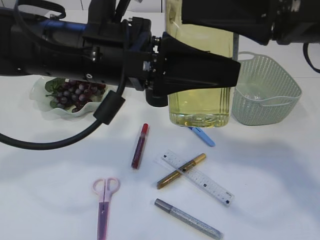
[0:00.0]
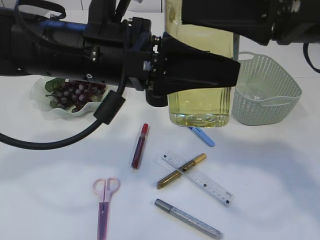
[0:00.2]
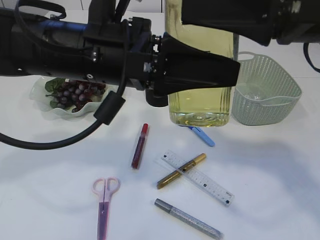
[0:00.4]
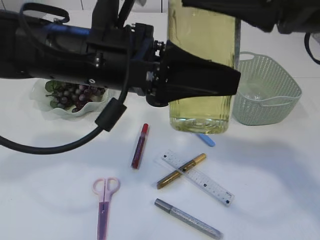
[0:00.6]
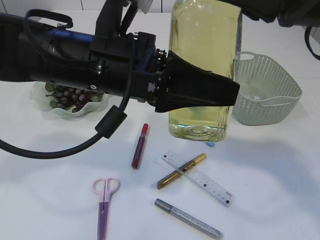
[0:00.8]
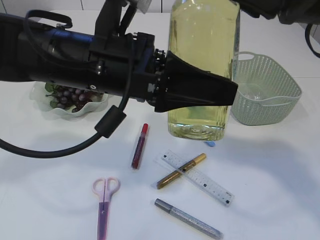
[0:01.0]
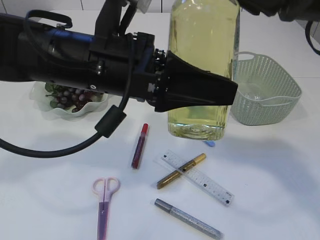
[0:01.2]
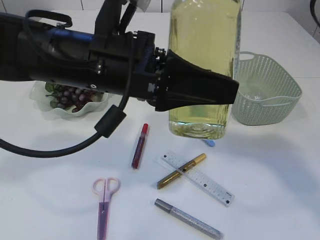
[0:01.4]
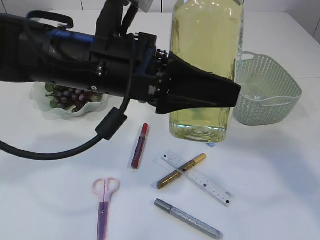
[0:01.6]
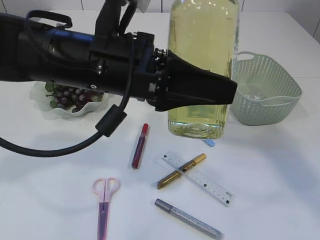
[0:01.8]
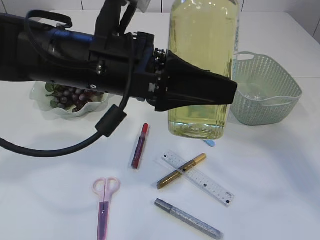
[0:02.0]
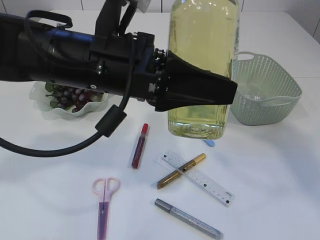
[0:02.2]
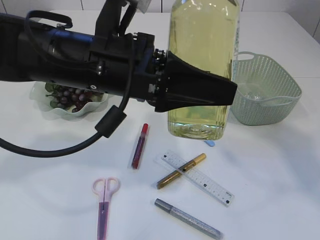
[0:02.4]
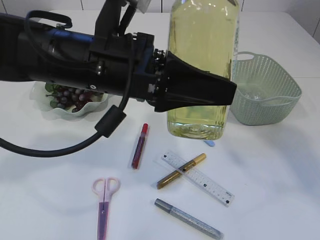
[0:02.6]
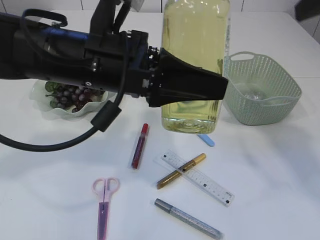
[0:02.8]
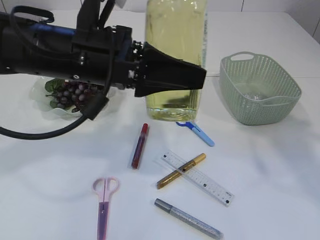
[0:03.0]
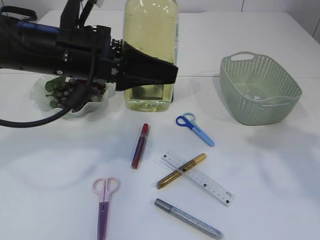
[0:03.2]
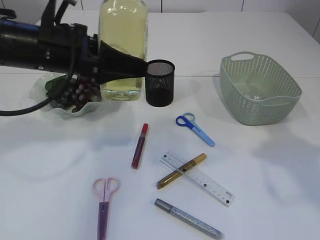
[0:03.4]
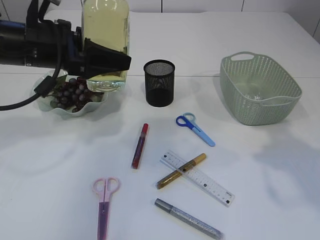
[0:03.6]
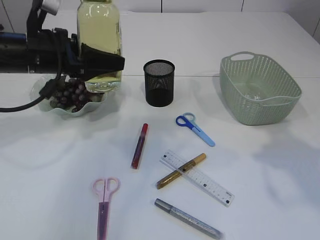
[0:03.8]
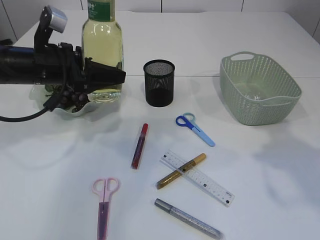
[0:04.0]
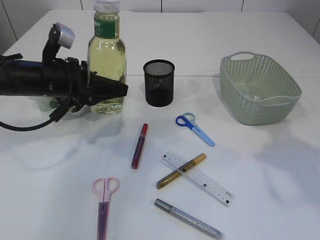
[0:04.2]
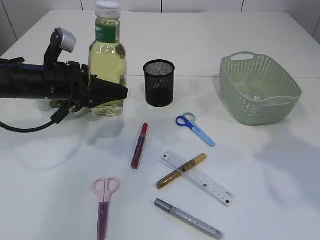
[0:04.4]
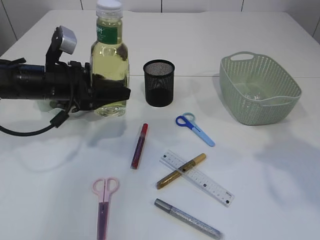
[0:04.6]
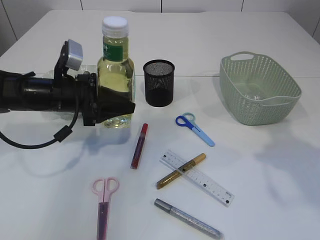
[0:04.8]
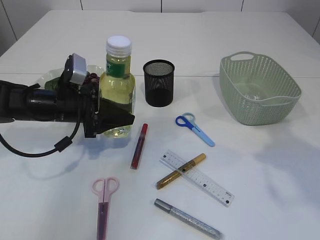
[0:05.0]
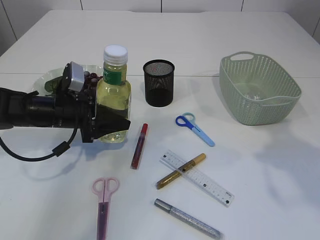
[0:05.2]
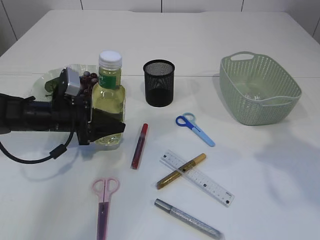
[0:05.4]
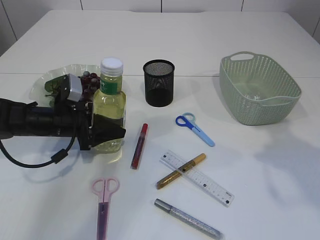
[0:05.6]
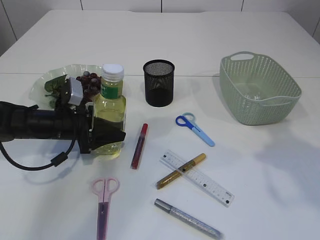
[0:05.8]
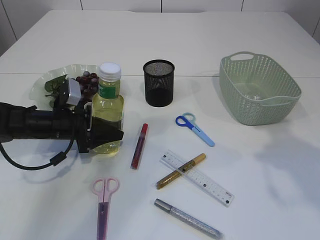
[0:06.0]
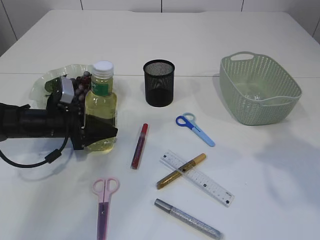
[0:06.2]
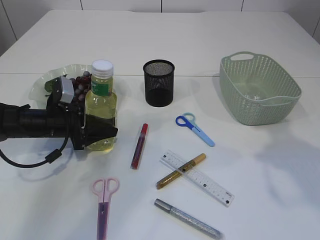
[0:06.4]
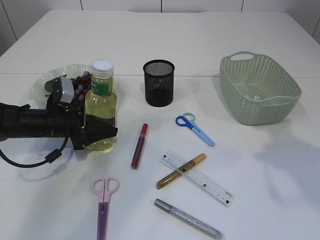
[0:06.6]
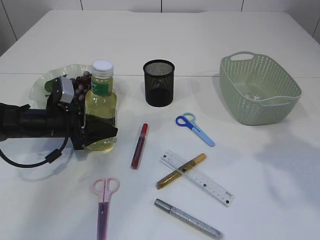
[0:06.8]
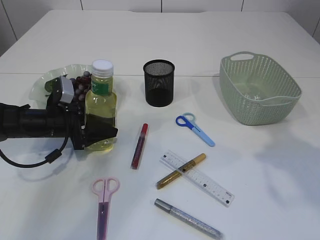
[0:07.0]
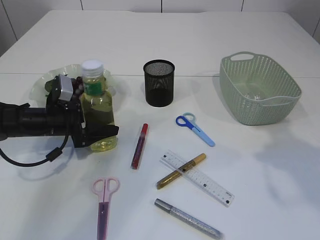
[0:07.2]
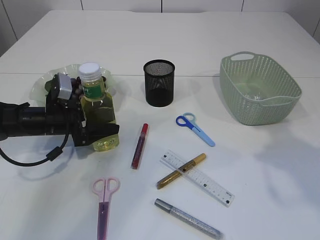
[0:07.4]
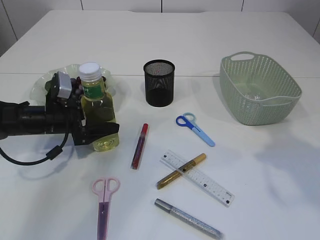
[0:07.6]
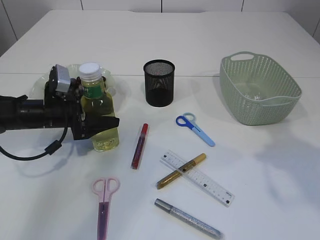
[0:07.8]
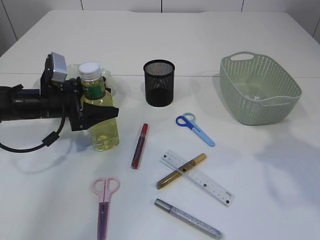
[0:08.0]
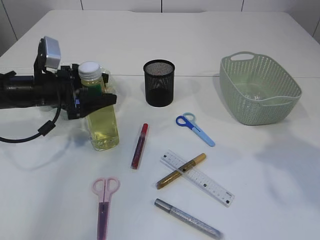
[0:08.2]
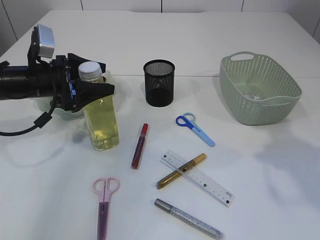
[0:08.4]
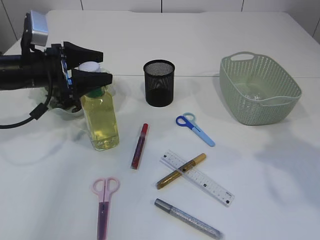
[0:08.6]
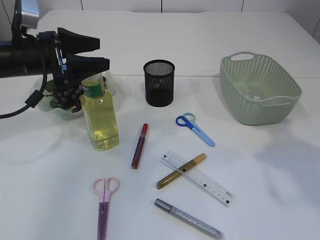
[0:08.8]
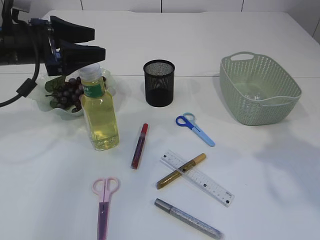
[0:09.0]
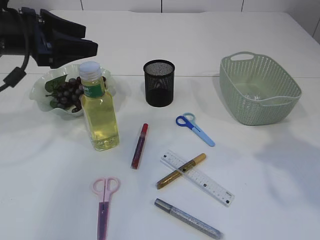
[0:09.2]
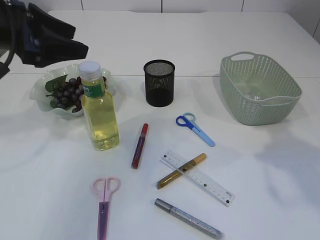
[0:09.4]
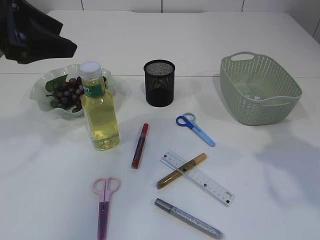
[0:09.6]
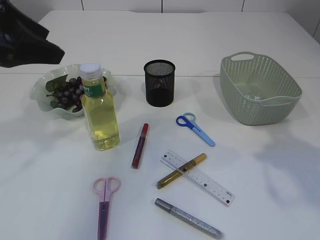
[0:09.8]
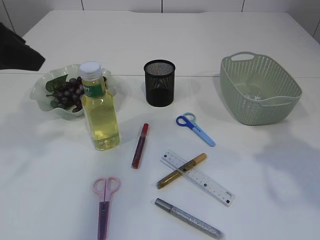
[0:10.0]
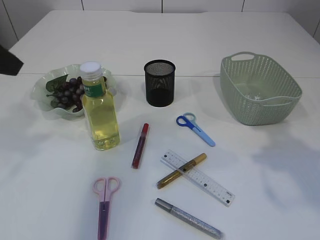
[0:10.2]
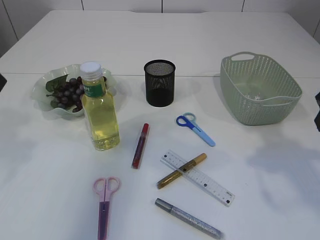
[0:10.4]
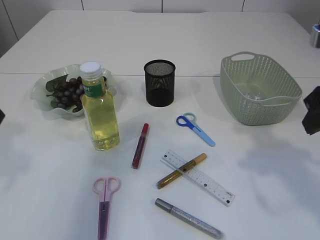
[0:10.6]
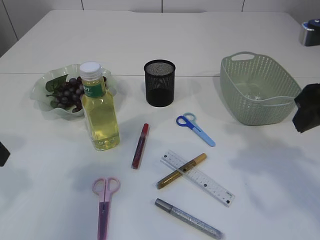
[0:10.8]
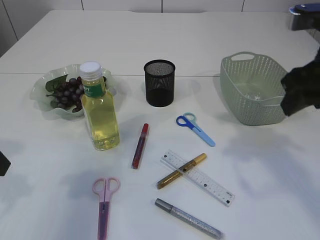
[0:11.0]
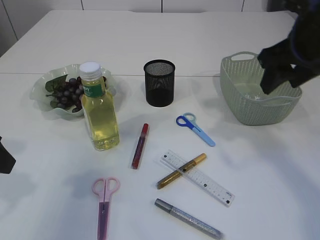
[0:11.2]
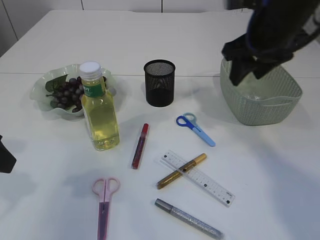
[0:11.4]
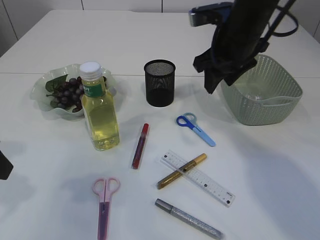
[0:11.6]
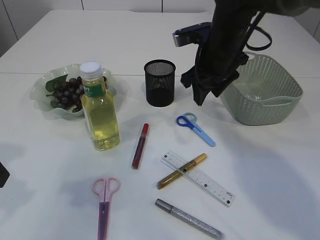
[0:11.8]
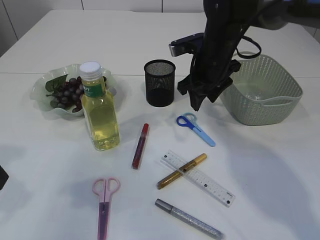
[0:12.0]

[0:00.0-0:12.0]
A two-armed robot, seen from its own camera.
Step, 0:00.0 to 0:03.0: transfer the bottle to the left arm.
Step, 0:03.2 to 0:09.0: Place the bottle.
0:00.0 to 0:01.6: The right gripper goes approximately 5 cm upward.
0:01.6 to 0:03.0: The right gripper goes approximately 10 cm to the right.
0:03.0 to 0:04.4: The right gripper shifts approximately 10 cm downward. Meanwhile the left gripper moves to the left, downward and forward, roughly 20 cm.
0:04.4 to 0:06.0: The left gripper is displaced downward by about 10 cm.
0:06.0 to 0:07.6: The left gripper opens.
0:07.6 to 0:09.0: The left gripper is displaced upward by some 15 cm.
0:09.0 to 0:10.4: The left gripper travels backward and upward by approximately 15 cm.
0:10.4 to 0:12.0: The right gripper moves forward and to the left, approximately 25 cm. Meanwhile the left gripper shifts roughly 10 cm downward.

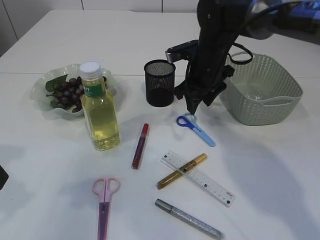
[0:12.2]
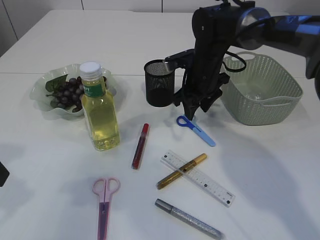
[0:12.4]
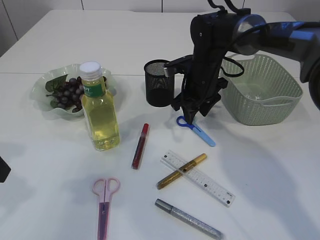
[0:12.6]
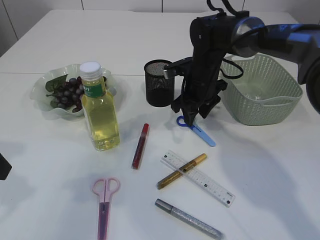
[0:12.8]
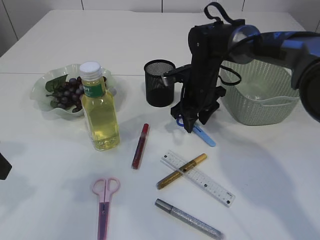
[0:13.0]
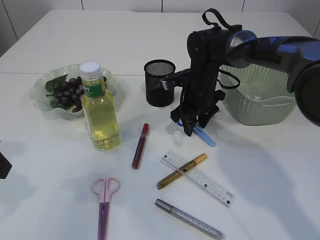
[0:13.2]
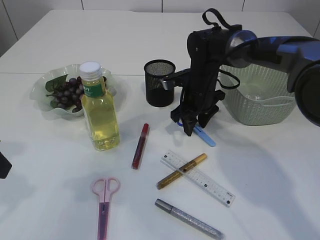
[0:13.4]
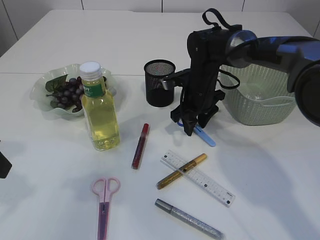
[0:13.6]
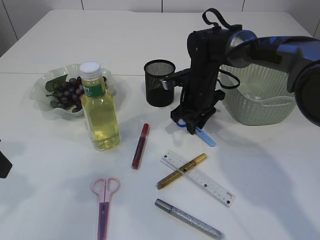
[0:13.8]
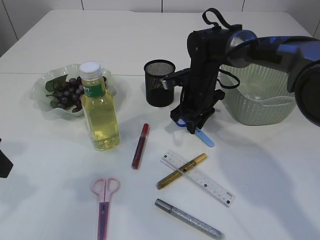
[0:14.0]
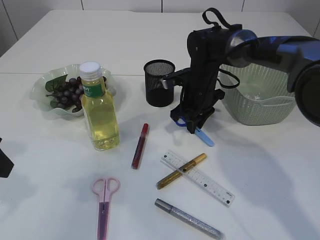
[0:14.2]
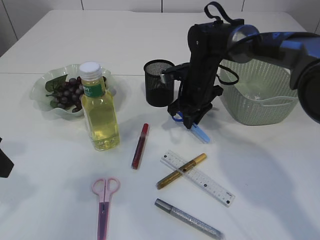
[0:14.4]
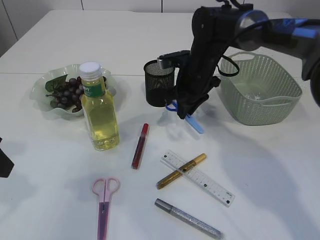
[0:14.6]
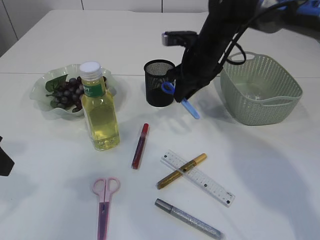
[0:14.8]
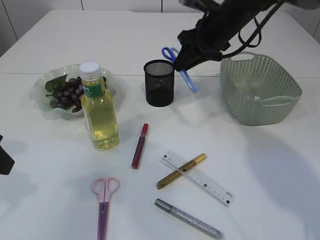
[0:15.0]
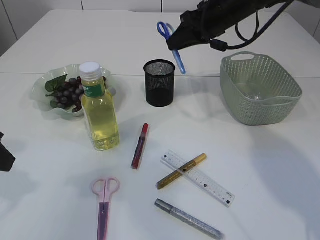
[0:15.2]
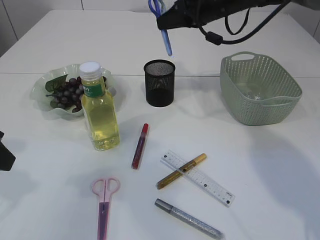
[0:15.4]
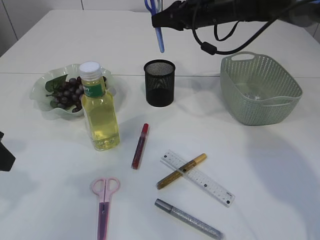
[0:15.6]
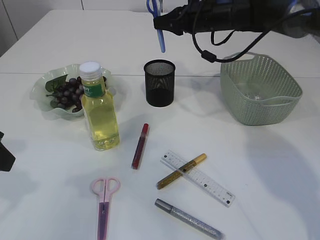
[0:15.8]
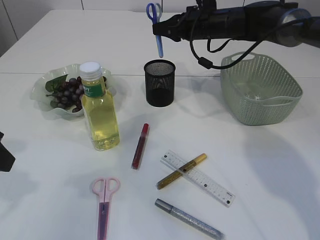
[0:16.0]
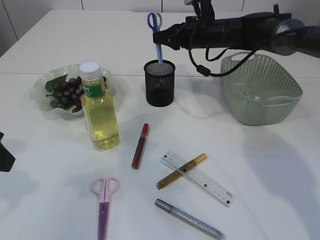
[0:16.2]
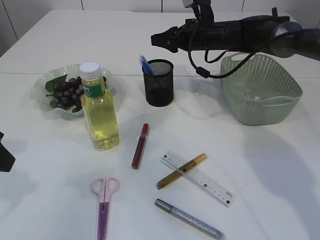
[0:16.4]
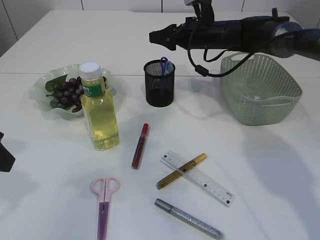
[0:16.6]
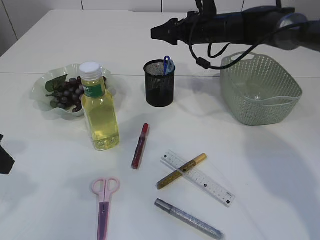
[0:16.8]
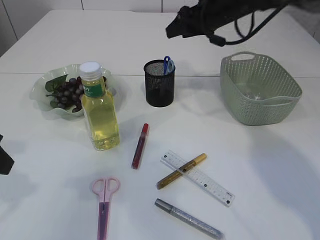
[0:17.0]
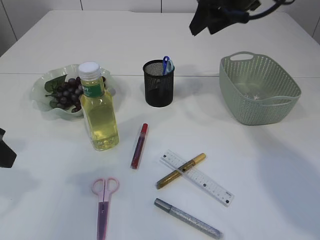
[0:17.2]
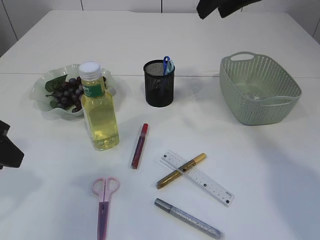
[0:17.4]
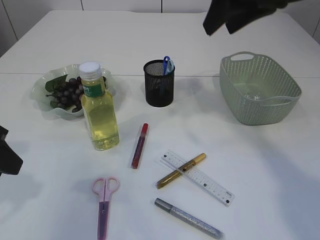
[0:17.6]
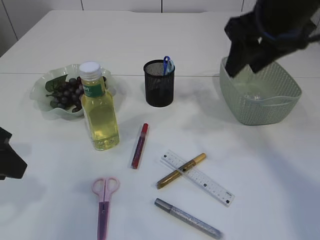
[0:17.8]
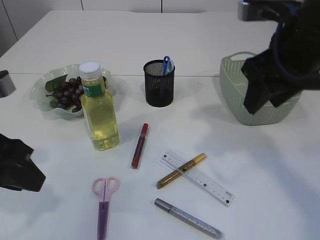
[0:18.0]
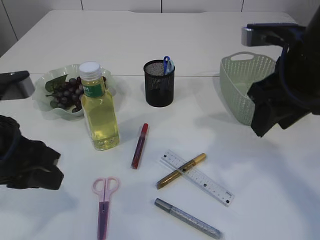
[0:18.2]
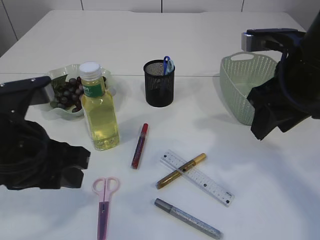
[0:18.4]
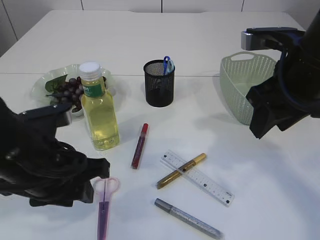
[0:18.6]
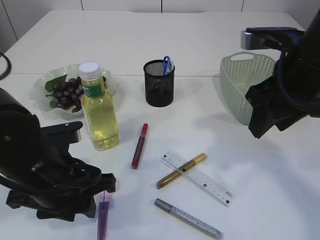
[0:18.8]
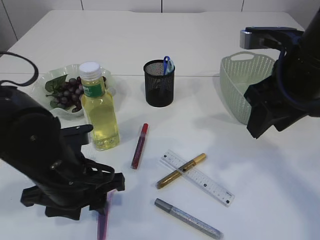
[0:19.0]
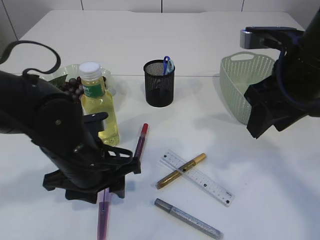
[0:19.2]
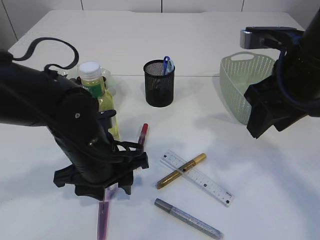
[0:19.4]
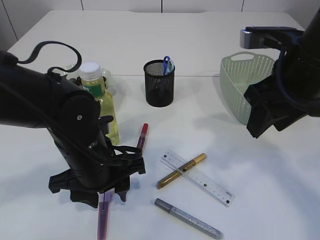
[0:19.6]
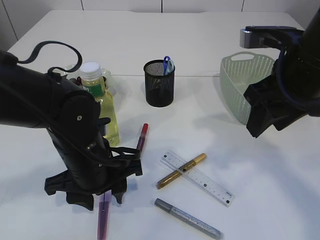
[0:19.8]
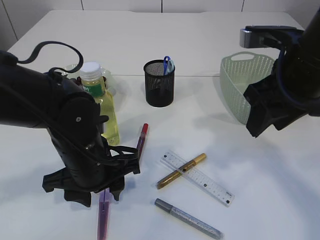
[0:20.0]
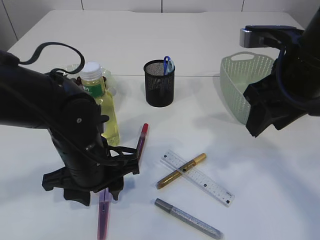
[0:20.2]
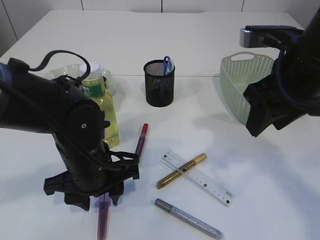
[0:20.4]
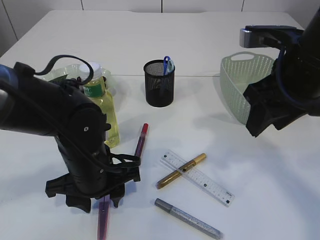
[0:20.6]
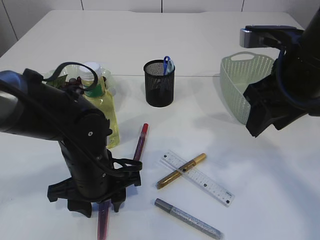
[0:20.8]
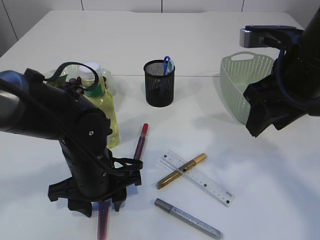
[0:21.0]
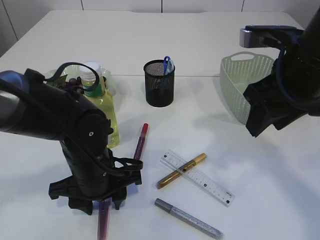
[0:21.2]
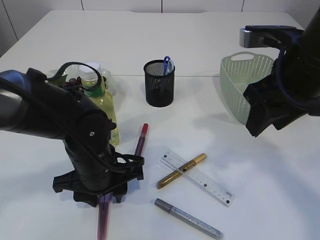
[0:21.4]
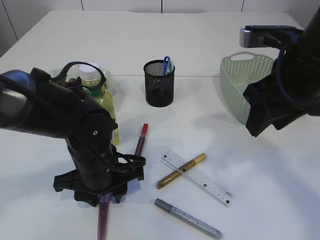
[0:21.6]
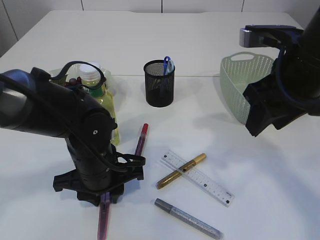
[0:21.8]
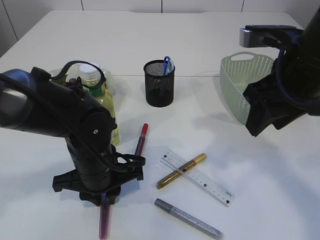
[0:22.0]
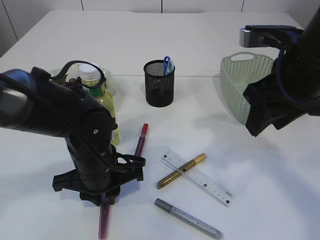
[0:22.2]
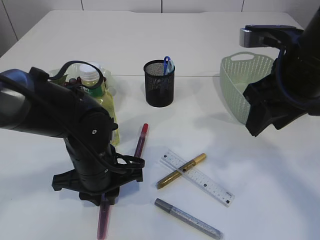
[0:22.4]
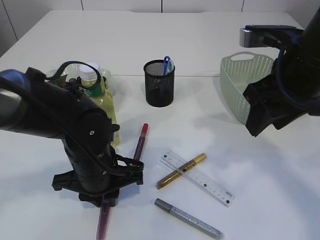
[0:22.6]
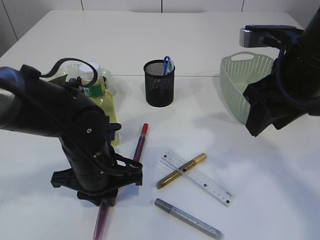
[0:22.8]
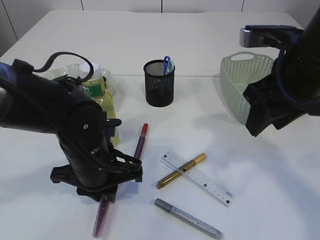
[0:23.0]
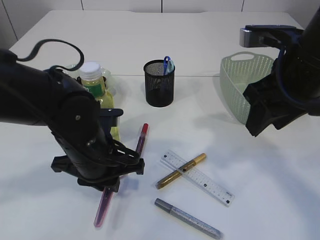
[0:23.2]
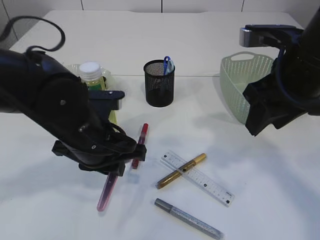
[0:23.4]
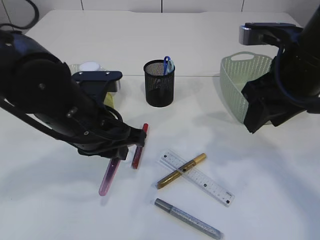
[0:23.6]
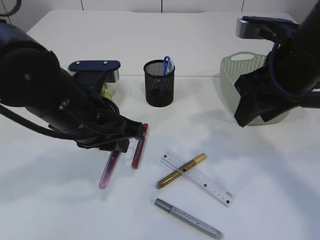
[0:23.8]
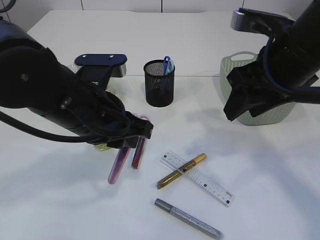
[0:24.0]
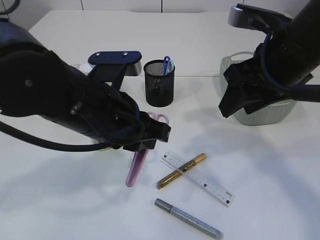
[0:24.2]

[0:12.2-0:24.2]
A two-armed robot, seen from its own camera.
Step, 0:12.2 to 0:14.8: pick up the blue scissors.
Step, 0:15.0 to 0:16.8: Place the blue scissors into the pen holder.
Step, 0:17.0 to 0:23.6: pick up the pink scissors.
0:12.2 to 0:13.8: The right gripper goes some 5 cm downward.
0:13.8 to 0:15.2: The right gripper shifts approximately 15 cm upward.
0:15.2 to 0:16.6: The right gripper shifts about 10 cm downward and forward, and opens up.
0:16.6 to 0:18.2: The left gripper goes about 10 cm to the right, while the right gripper travels backward by some 25 cm.
0:18.2 to 0:19.8: The left gripper moves downward, to the right and forward, approximately 15 cm.
0:19.8 to 0:21.2: The grippers move only a little.
0:21.2 to 0:22.6: The left gripper closes.
0:22.6 to 0:24.2: The left gripper shifts roughly 10 cm upward.
